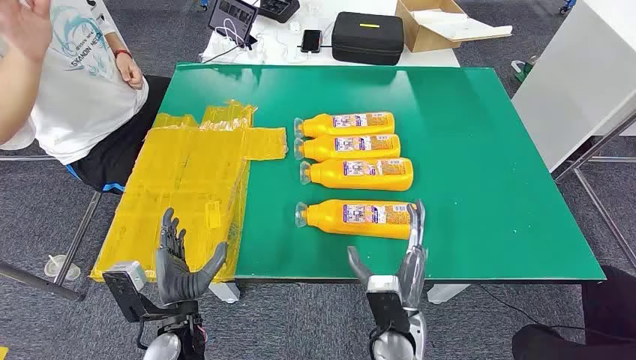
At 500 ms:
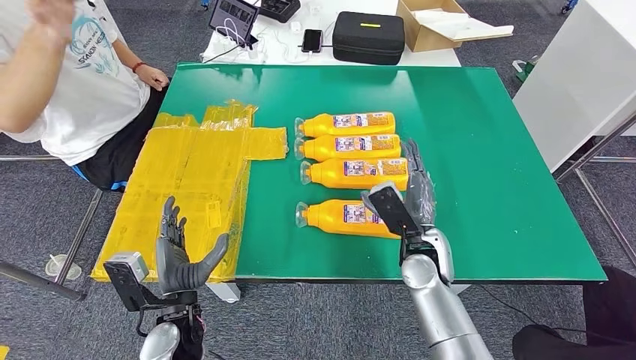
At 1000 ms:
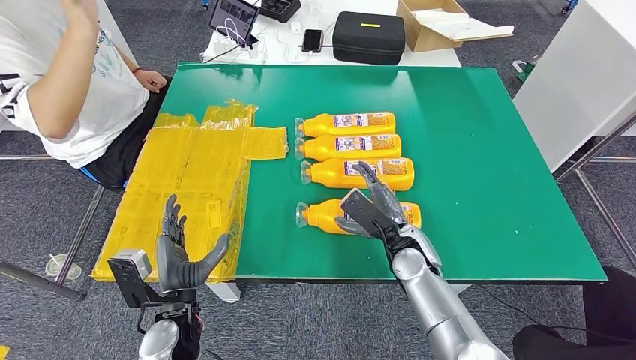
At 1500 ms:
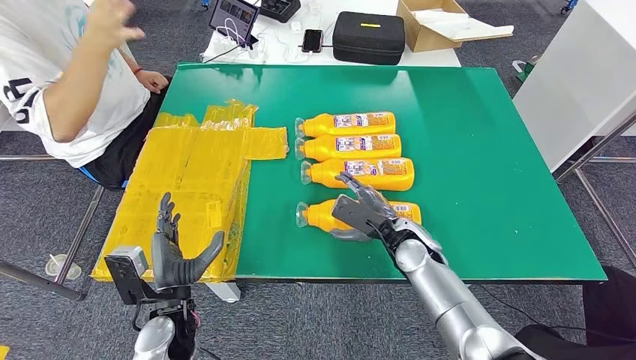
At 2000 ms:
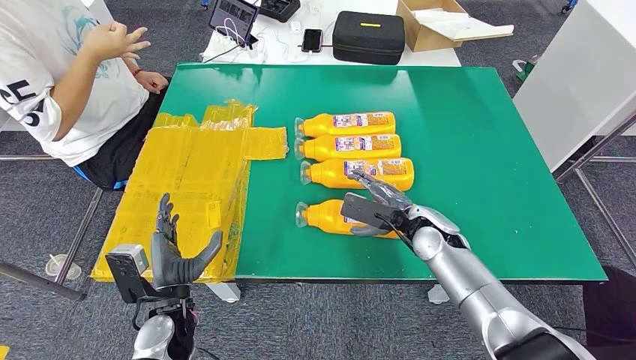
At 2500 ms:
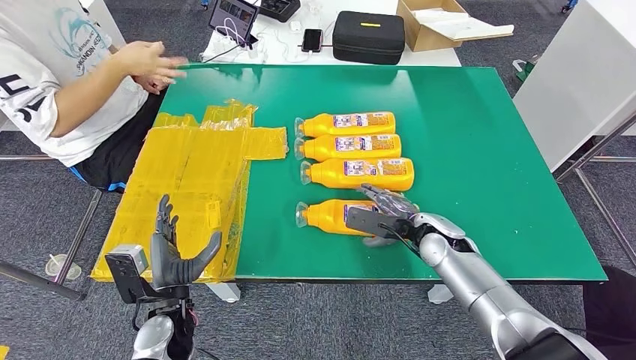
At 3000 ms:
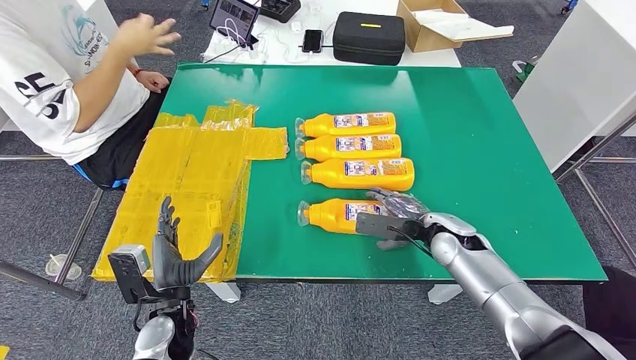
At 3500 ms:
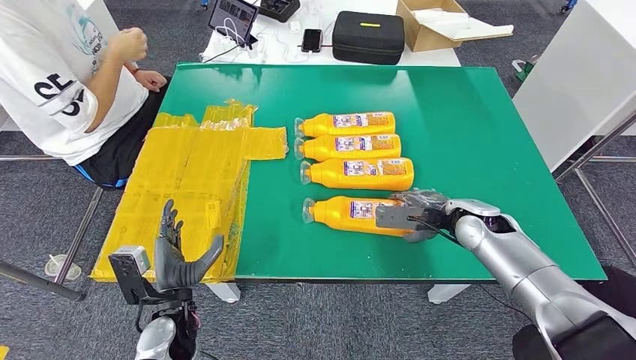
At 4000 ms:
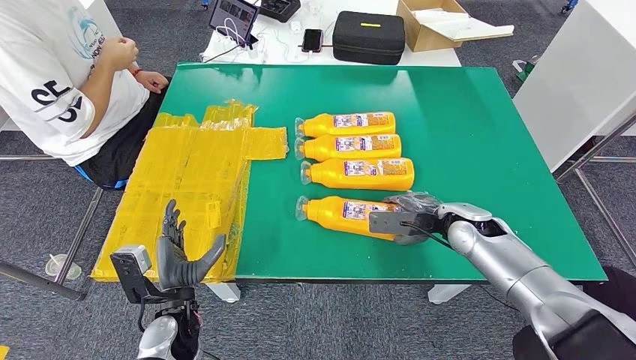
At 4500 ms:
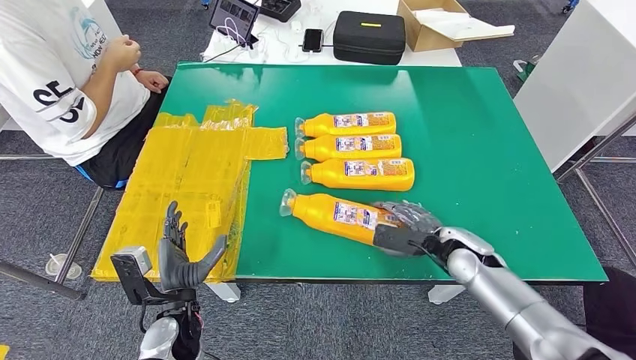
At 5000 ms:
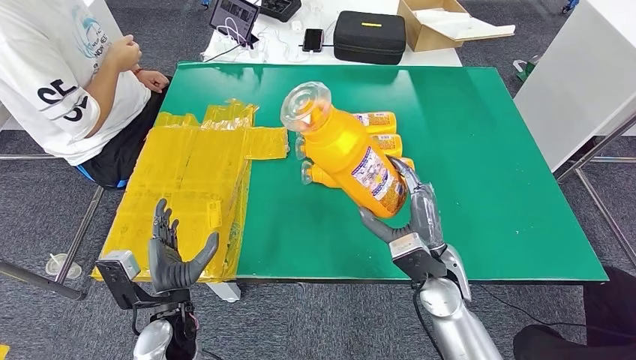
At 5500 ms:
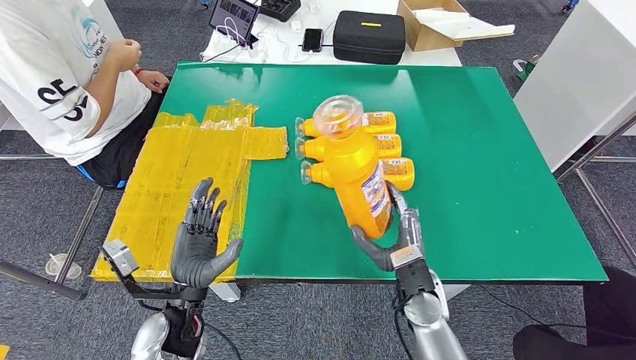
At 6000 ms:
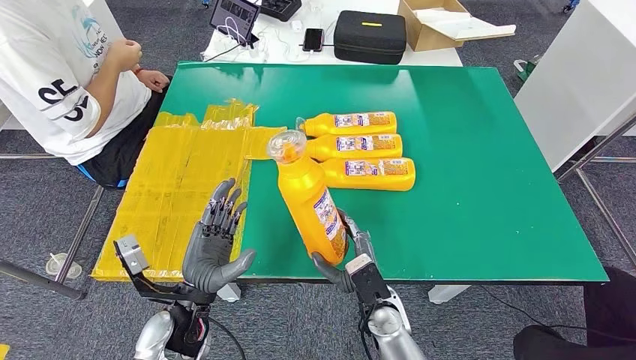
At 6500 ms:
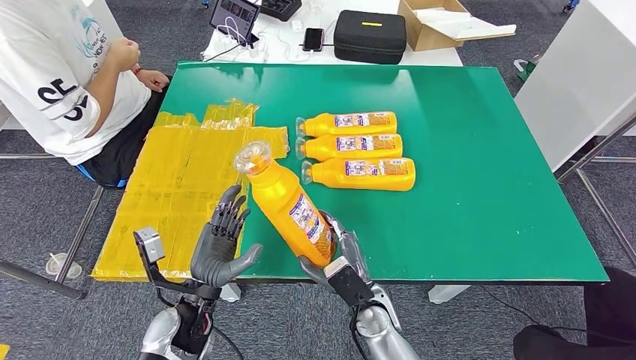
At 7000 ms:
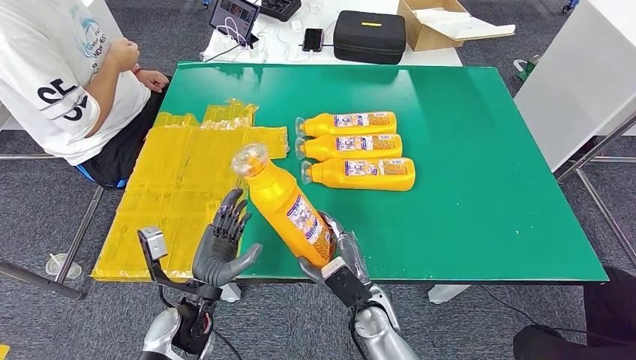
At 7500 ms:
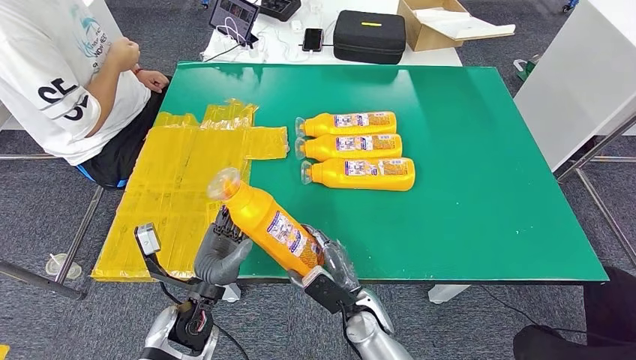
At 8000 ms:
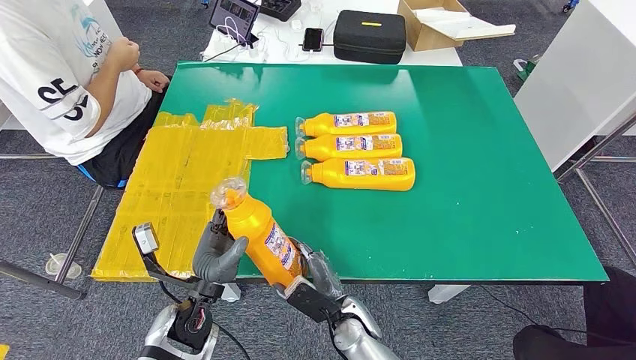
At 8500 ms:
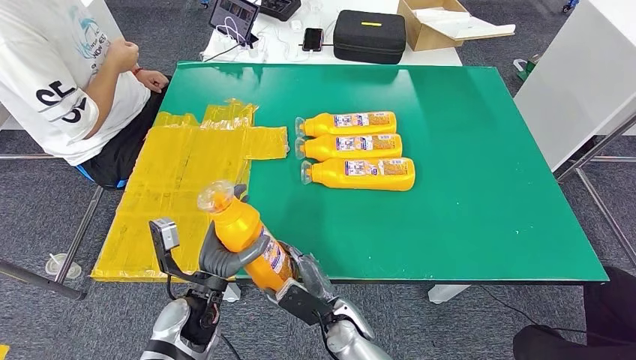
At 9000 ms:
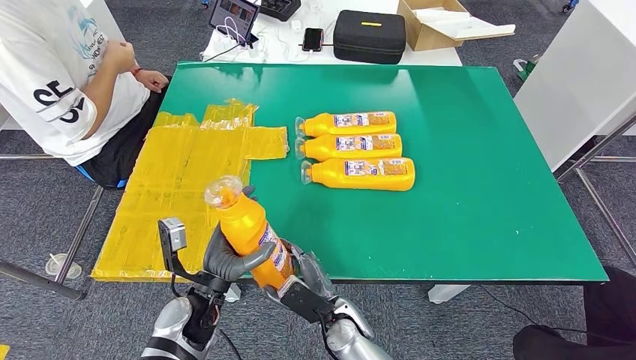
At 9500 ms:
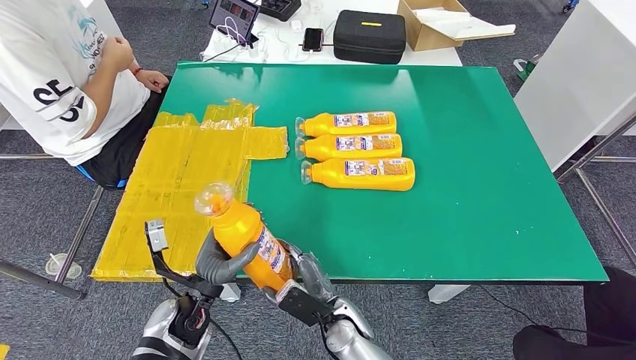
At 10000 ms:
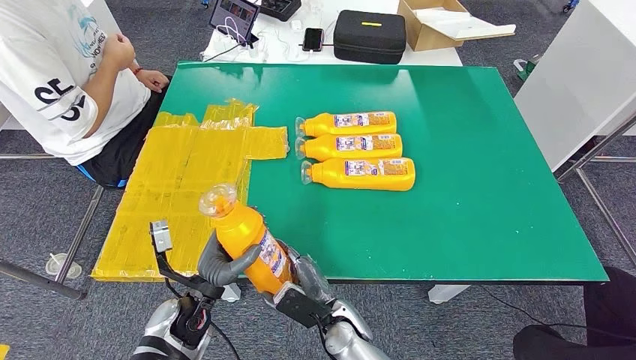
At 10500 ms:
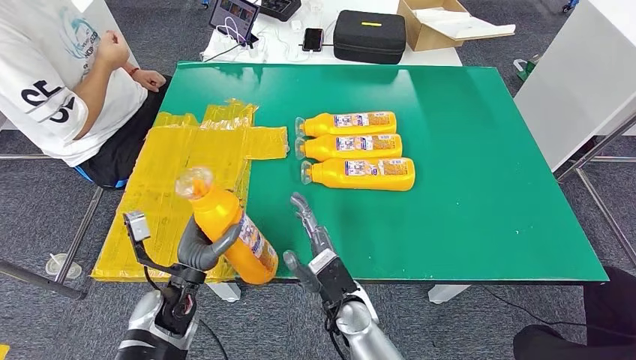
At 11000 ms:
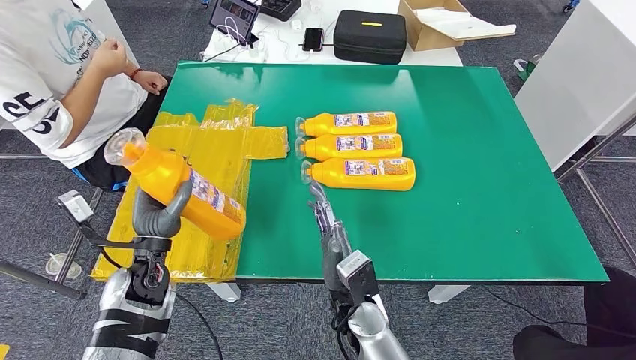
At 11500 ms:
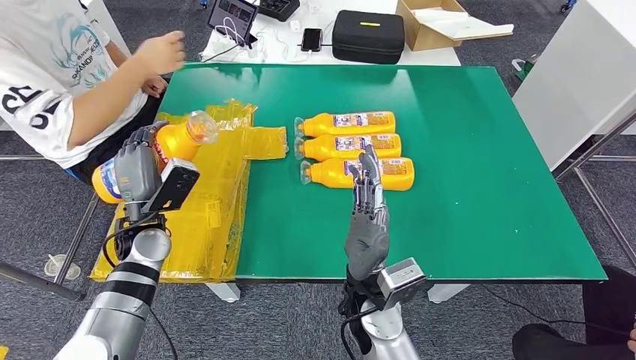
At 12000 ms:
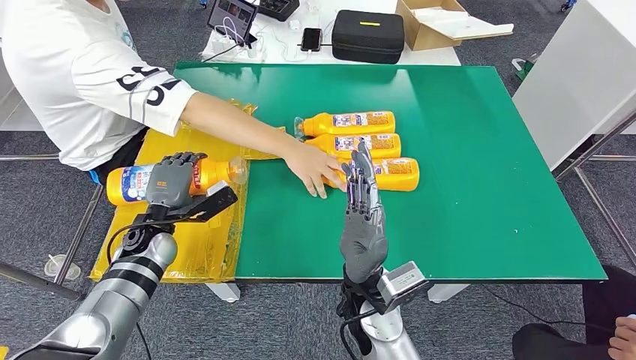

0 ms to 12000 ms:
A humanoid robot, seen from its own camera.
Step, 0 ms to 7000 ms: Take the fast-moving consumer goods bottle from the table.
2000 ms to 4000 ms: The right hand shifts approximately 5 cm to the right.
4000 ms to 6000 ms: The right hand moves to the left, backward and downward, some 25 cm. The left hand shifts by roughly 5 cm.
6000 ms to 8000 ms: The right hand travels to the left by about 5 cm.

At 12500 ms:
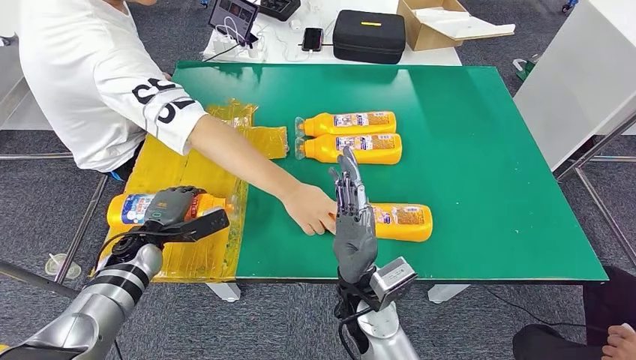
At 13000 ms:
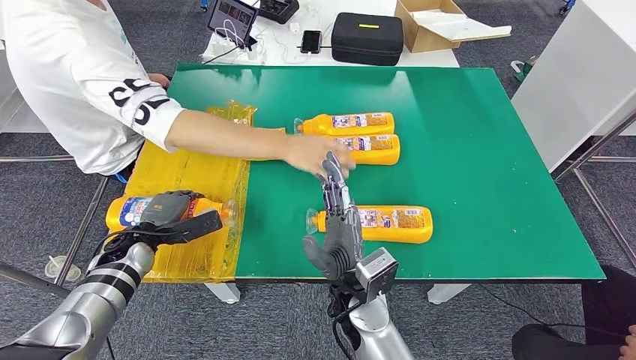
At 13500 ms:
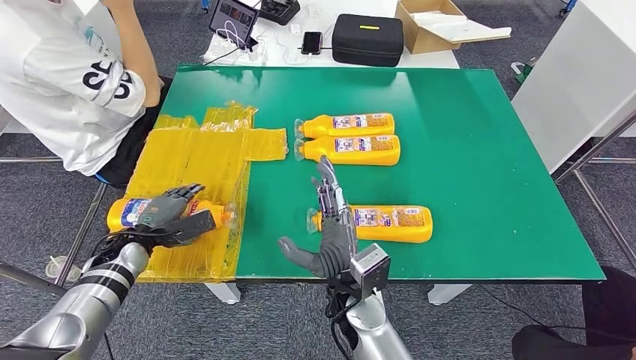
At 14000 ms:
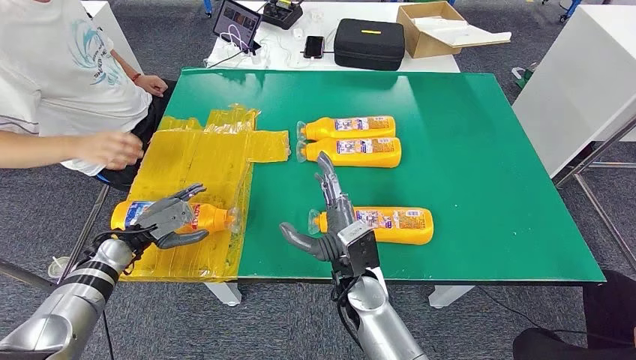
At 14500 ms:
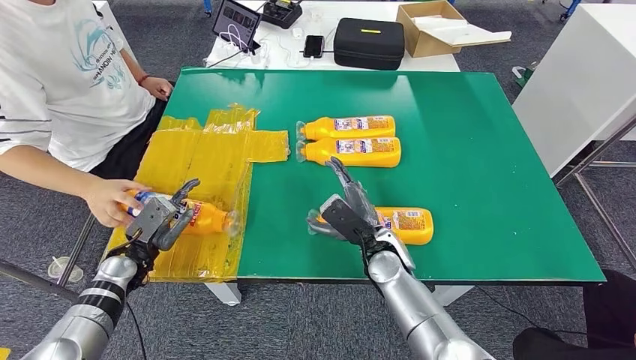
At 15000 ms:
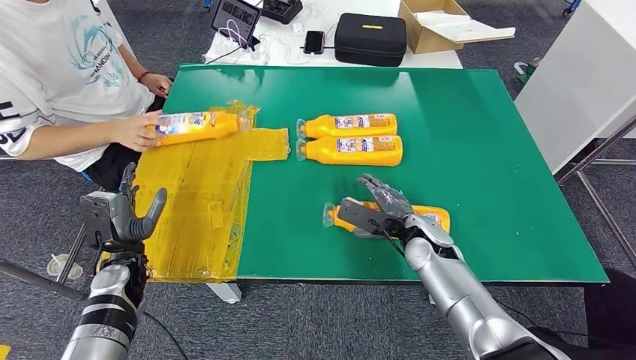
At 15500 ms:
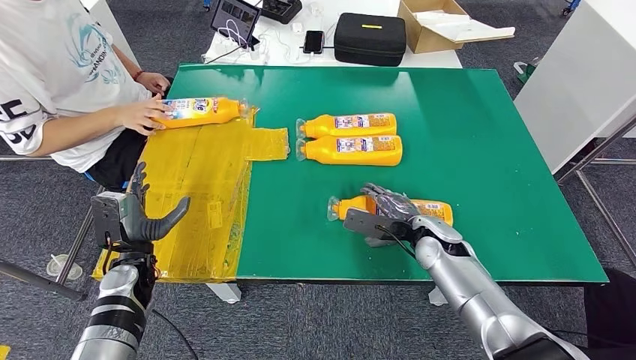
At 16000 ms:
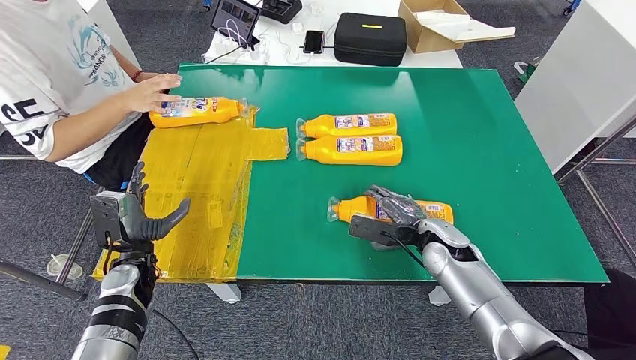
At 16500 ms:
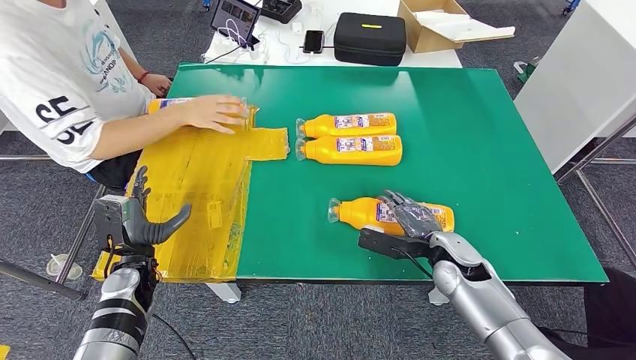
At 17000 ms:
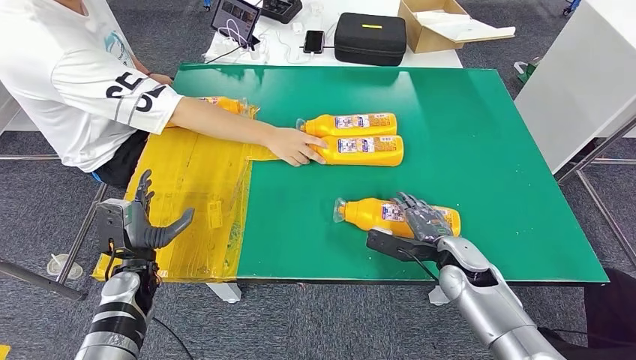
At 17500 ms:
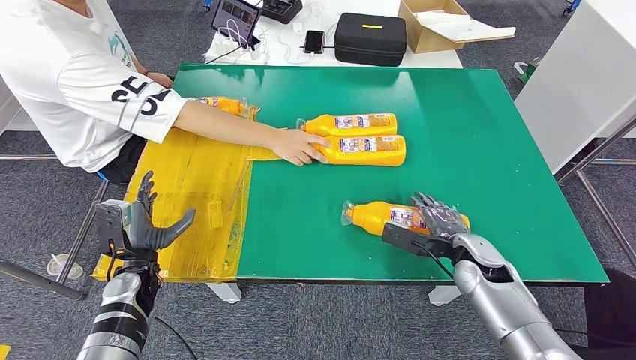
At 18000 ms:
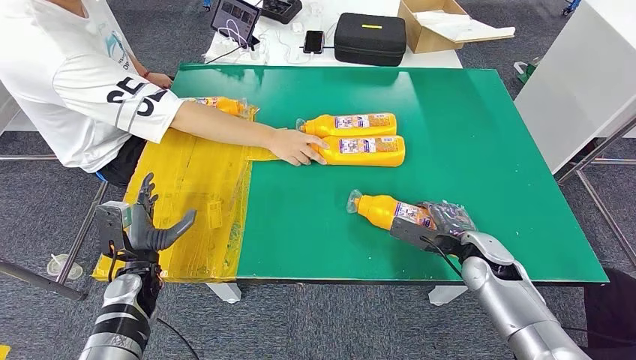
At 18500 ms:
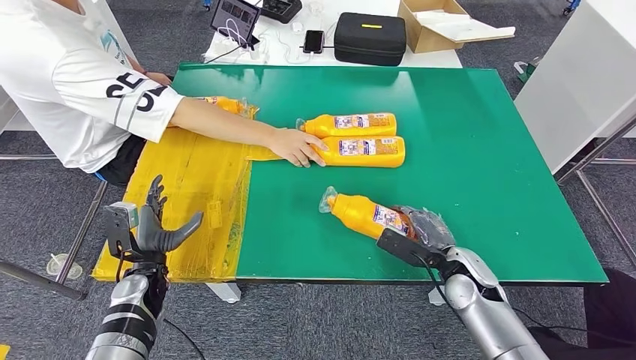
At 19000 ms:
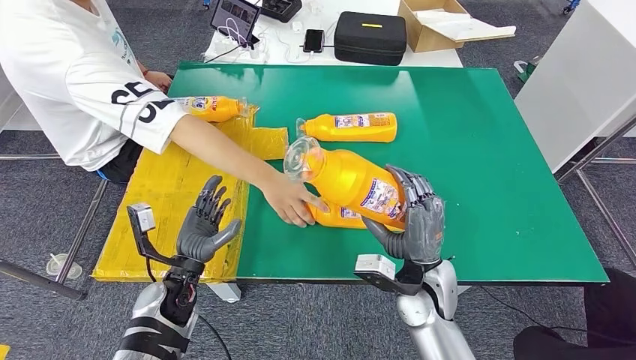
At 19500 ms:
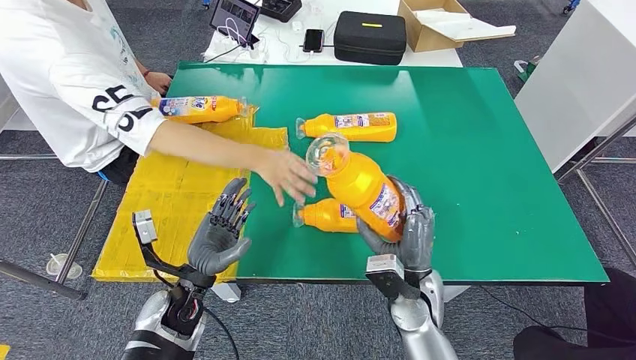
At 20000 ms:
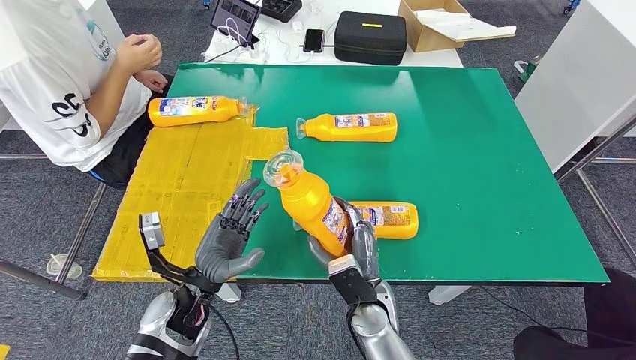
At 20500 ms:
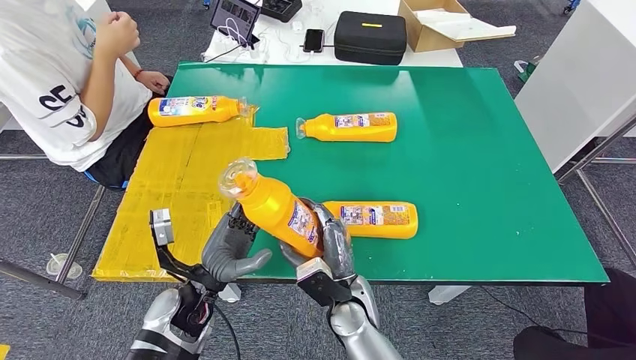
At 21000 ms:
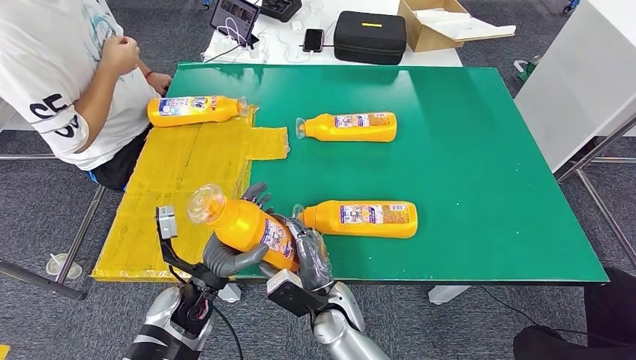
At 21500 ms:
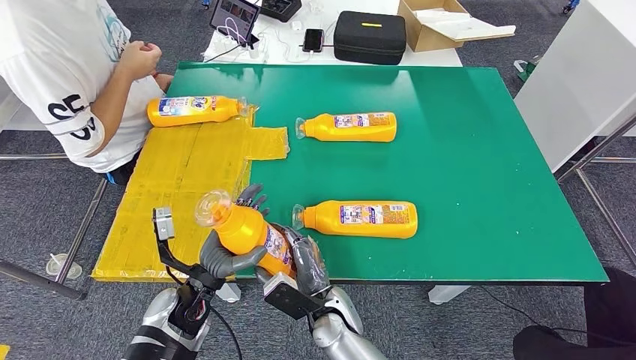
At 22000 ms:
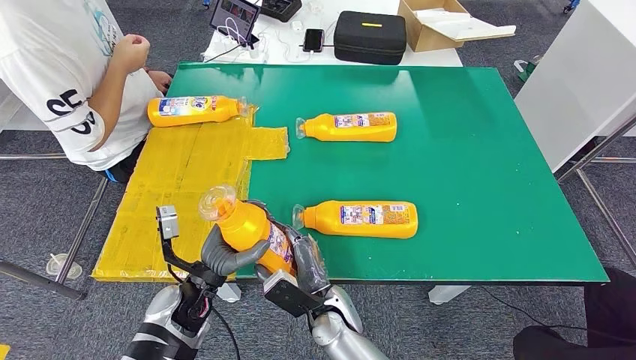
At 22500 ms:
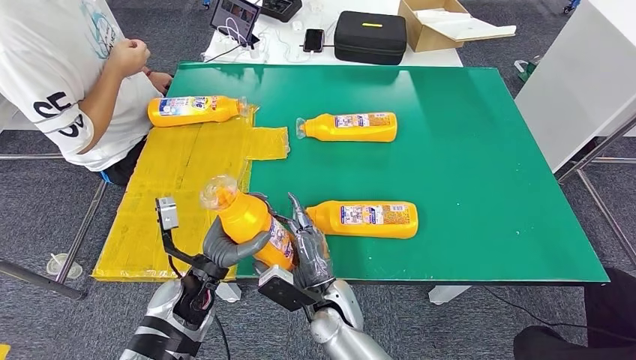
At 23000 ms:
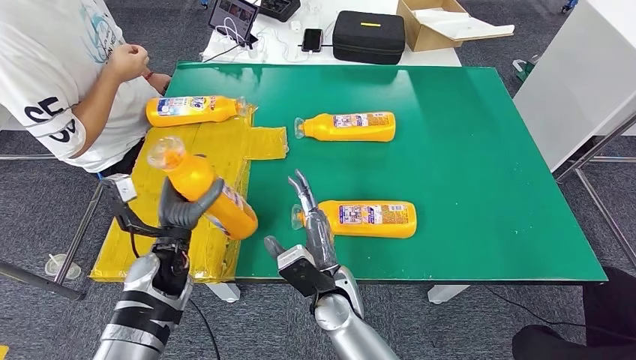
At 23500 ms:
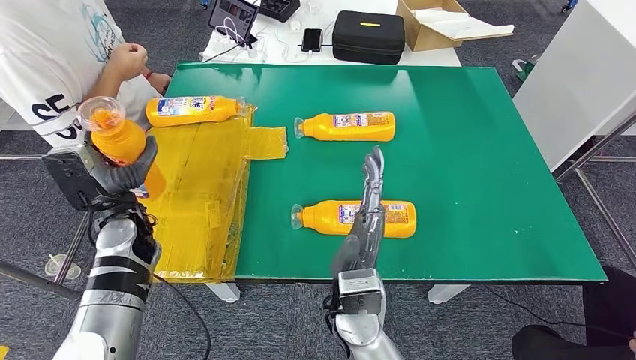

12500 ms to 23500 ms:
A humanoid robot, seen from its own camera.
Step, 14000 ms to 20500 ms: Pick up the fast-moving consumer goods bottle from the table.
20000 ms to 21500 ms: The right hand shifts some 5 cm to the left.
